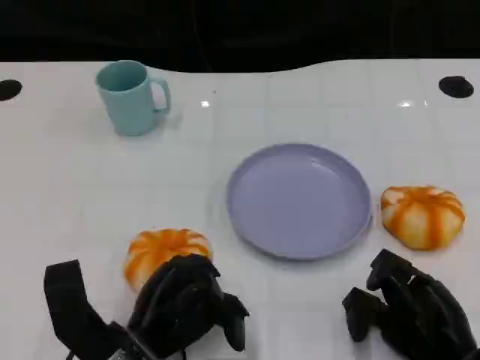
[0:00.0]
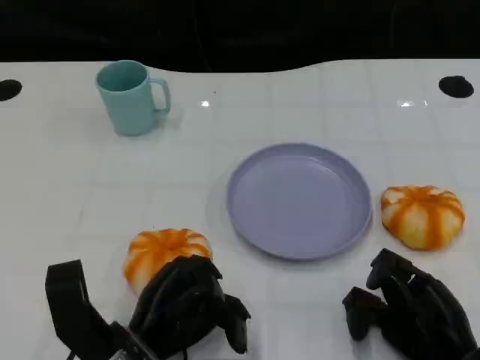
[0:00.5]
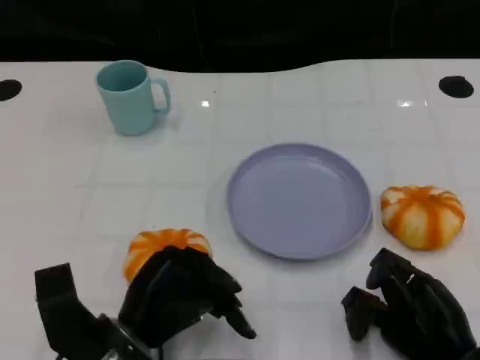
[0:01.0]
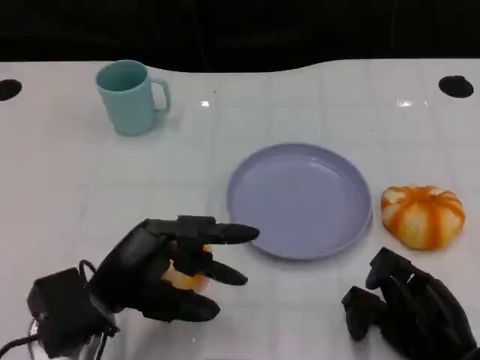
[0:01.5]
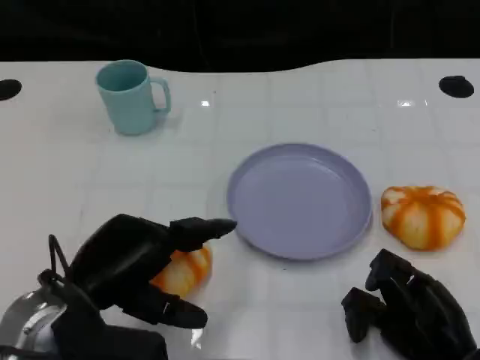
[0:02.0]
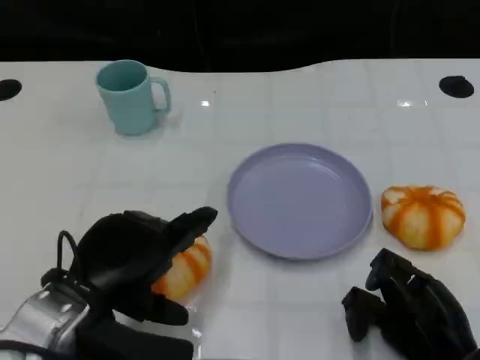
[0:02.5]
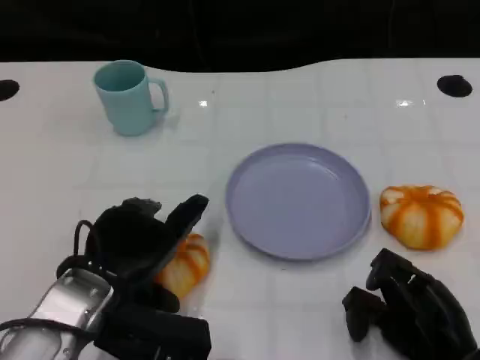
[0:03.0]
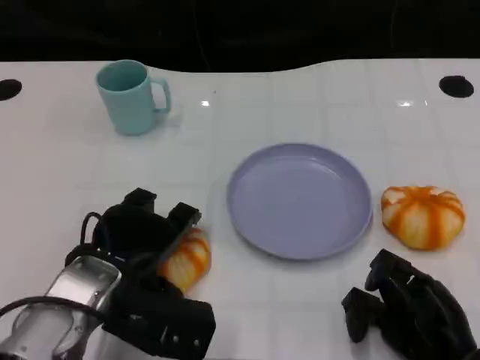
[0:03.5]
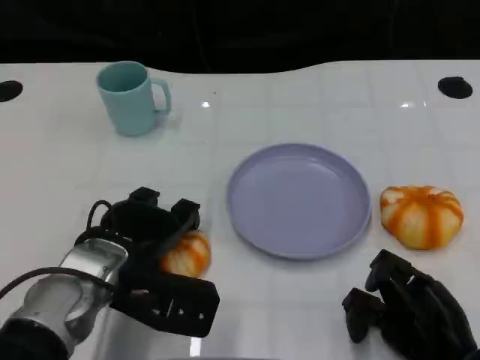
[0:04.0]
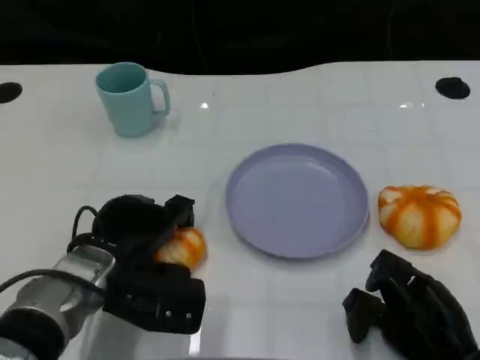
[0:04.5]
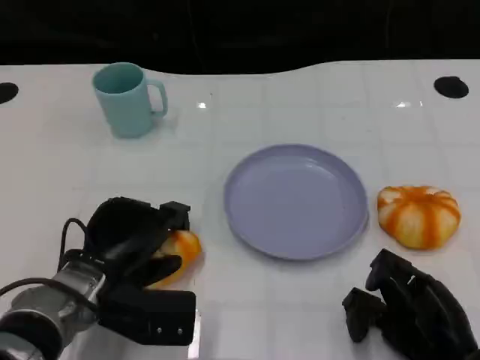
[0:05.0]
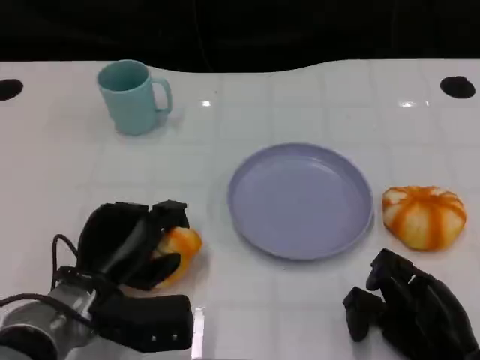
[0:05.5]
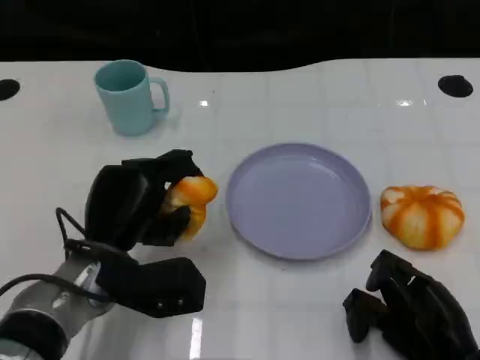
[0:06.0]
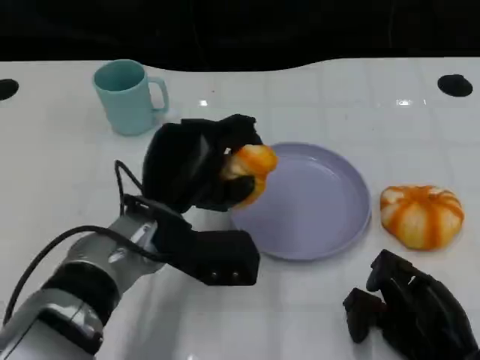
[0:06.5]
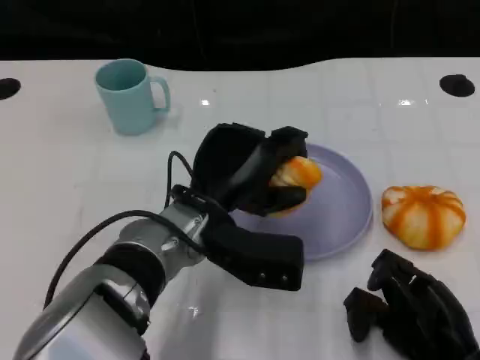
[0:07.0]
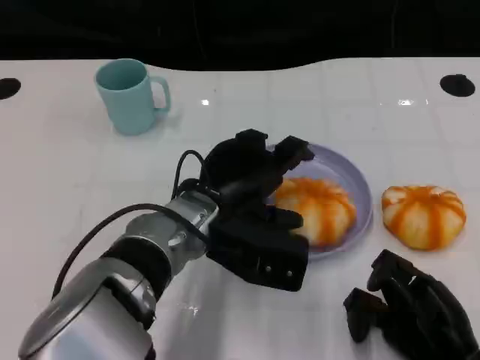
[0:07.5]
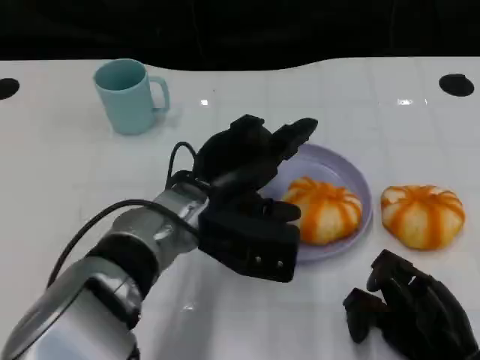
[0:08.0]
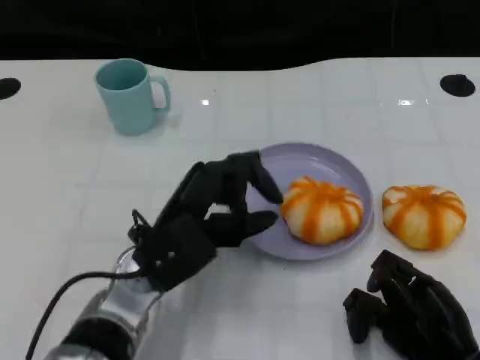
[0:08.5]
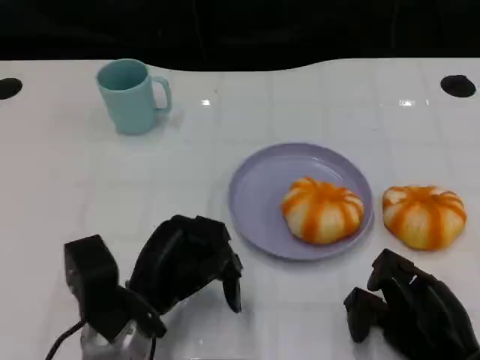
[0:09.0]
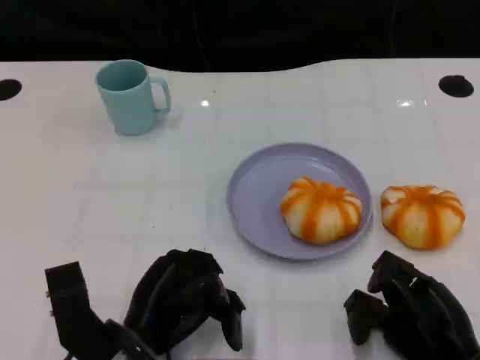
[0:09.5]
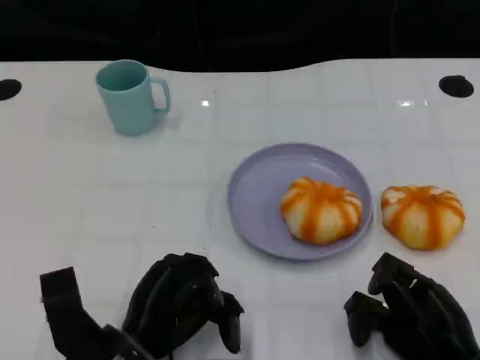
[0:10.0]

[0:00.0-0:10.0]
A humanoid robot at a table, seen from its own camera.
Task of the whole recording: Grasp the bread from the table and place it into the plate.
0:00.0 to 0:02.0: The left hand heads upward, covering roughly 10 cm.
0:02.0 to 0:04.0: The left hand moves forward, some 5 cm.
0:06.0 to 0:08.0: The left hand moves to the right, roughly 10 cm.
0:08.0 to 0:10.0: The left hand moves backward, downward and to the left, some 15 cm.

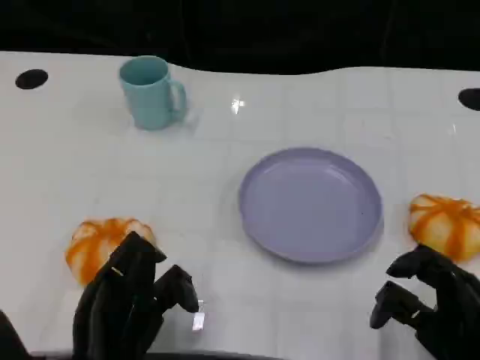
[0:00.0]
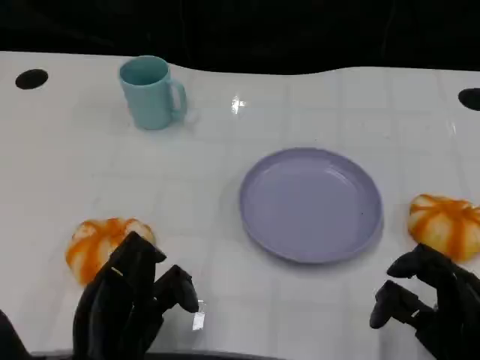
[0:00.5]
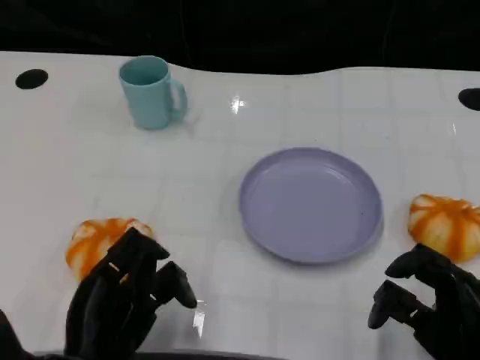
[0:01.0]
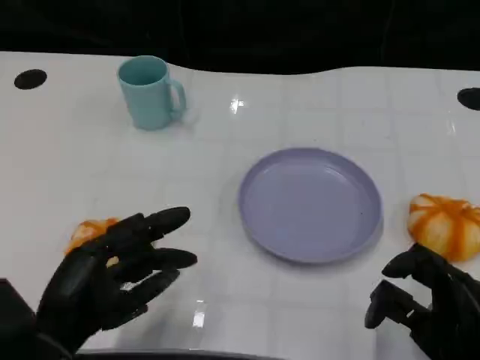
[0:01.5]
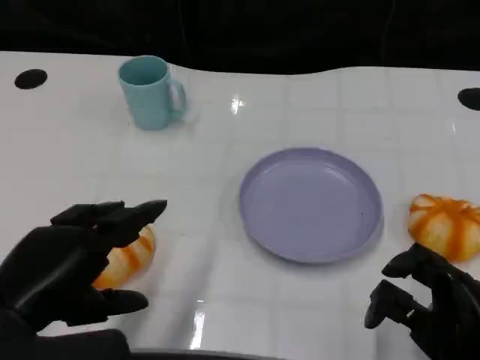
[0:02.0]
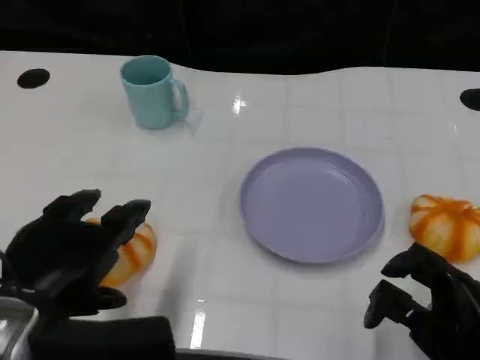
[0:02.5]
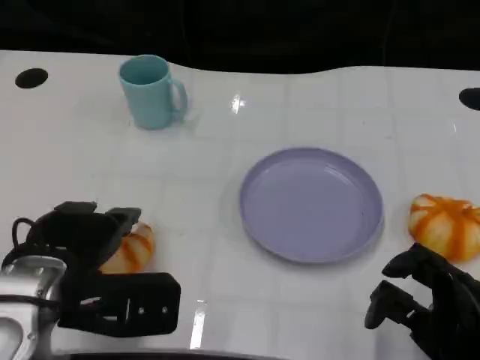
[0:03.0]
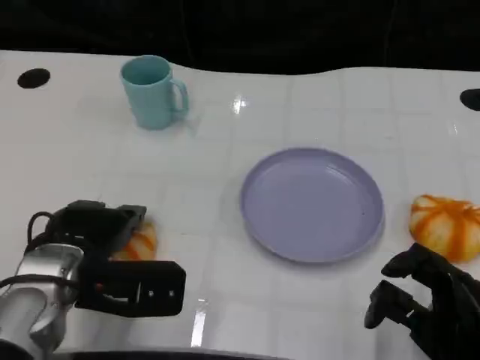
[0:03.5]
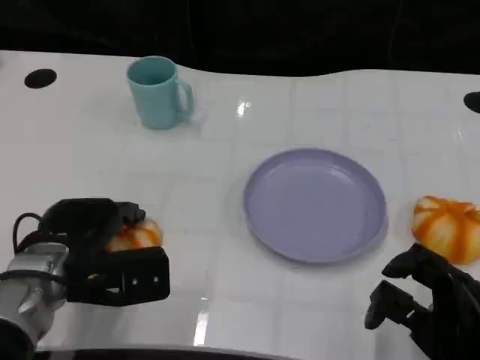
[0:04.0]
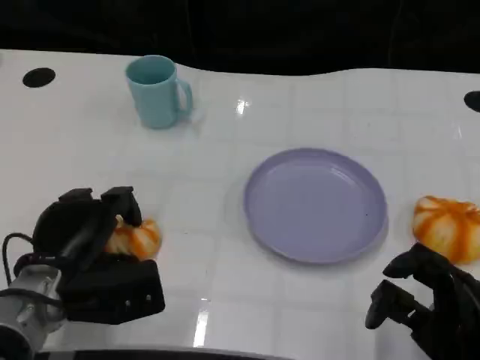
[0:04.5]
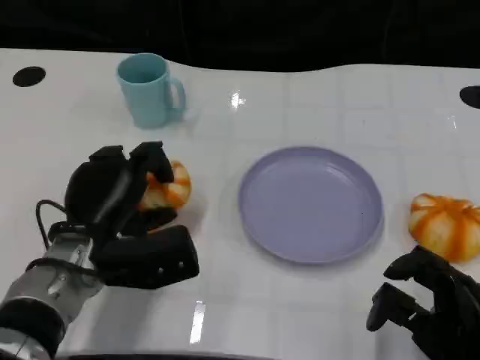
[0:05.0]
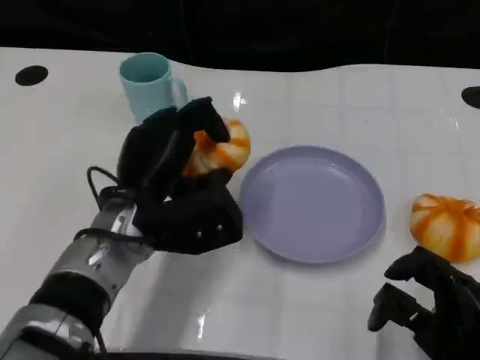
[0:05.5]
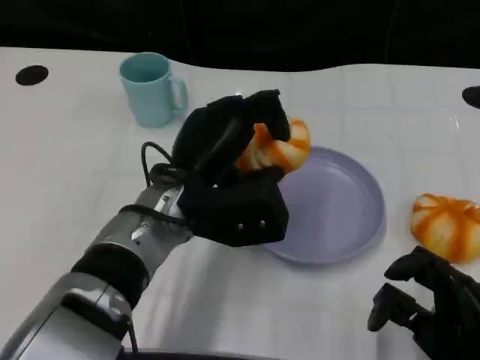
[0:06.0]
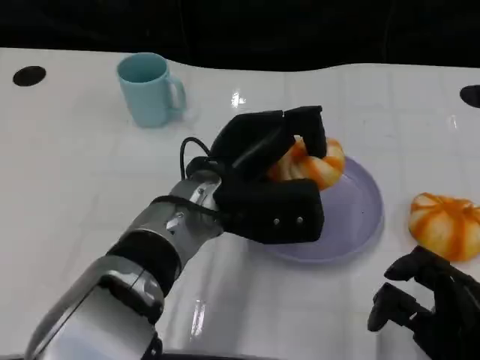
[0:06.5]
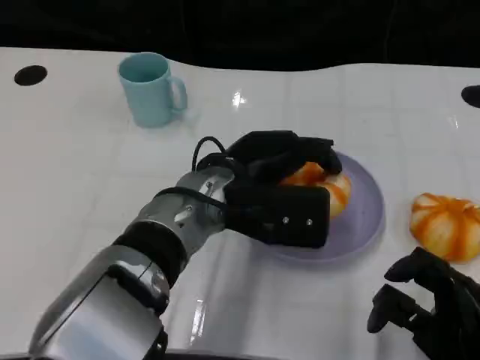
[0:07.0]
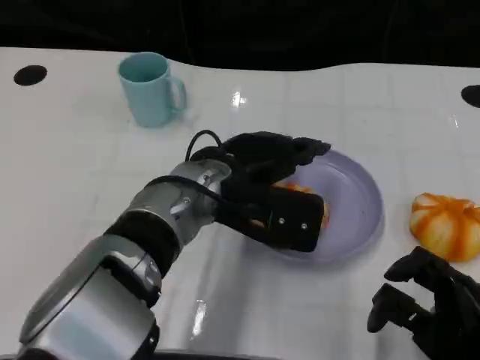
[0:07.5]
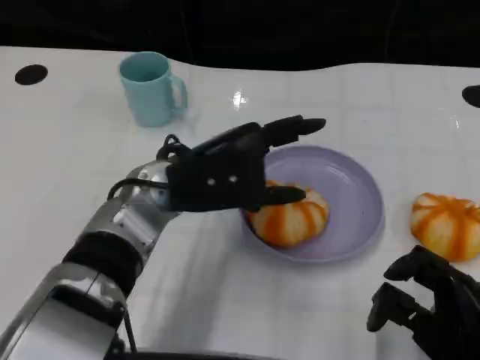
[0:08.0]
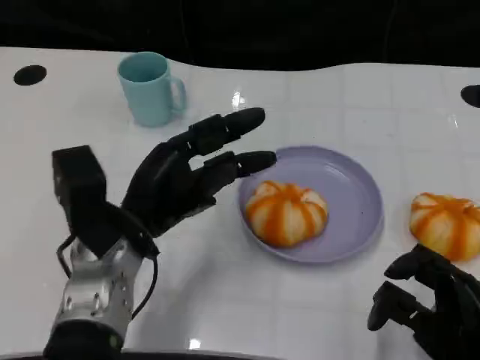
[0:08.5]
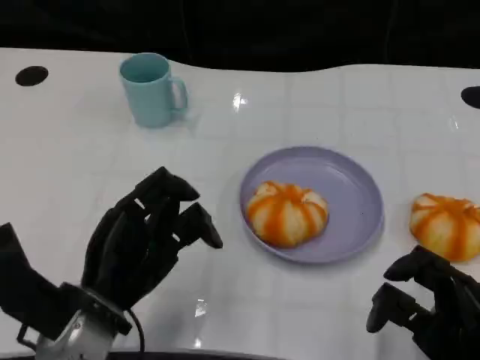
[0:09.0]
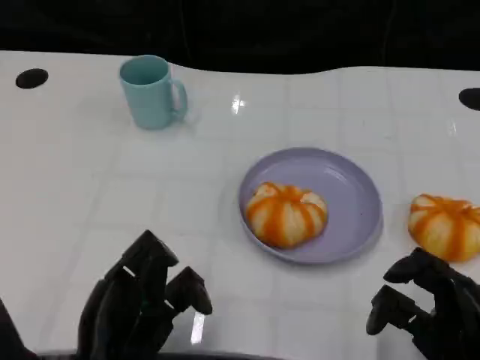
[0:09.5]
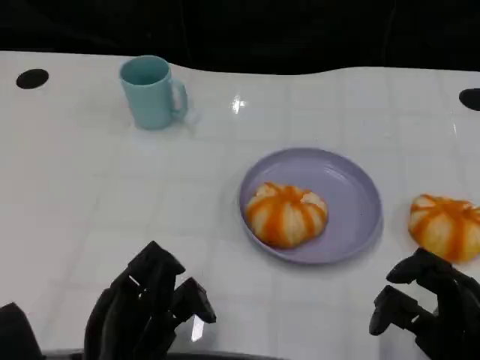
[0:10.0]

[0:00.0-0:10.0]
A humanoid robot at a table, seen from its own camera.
Task of the whole recording: Grasp the bread from the table and place it into the plate.
0:00.0 to 0:02.0: The left hand moves upward and to the left, some 10 cm.
0:02.0 to 0:04.0: The left hand moves forward and downward, about 15 cm.
0:04.0 to 0:06.0: The left hand travels to the right and upward by roughly 15 cm.
0:08.0 to 0:10.0: The left hand heads backward, downward and to the left, covering approximately 20 cm.

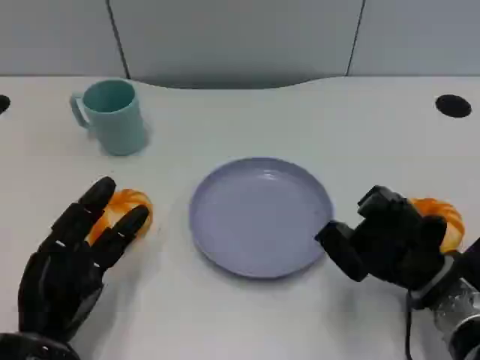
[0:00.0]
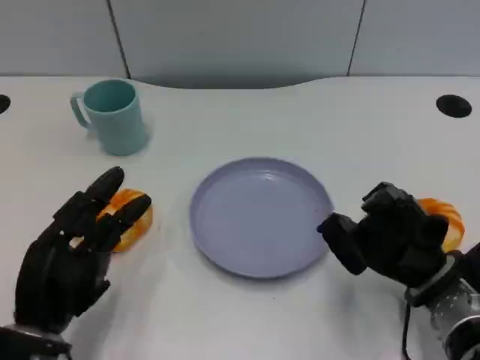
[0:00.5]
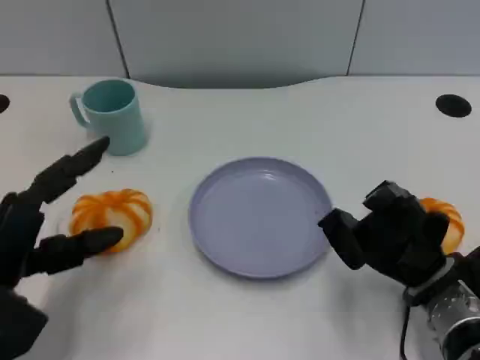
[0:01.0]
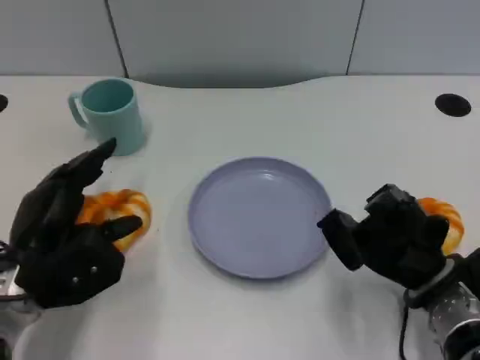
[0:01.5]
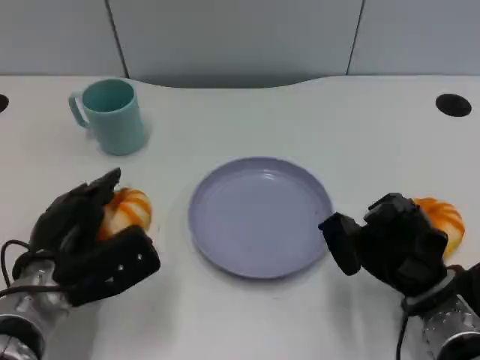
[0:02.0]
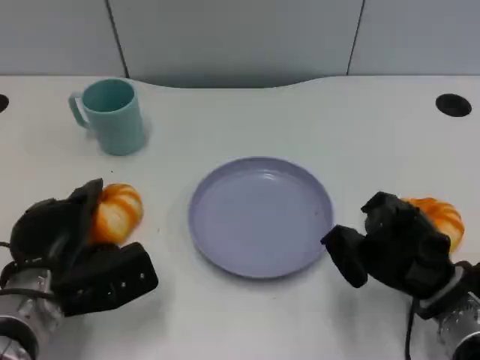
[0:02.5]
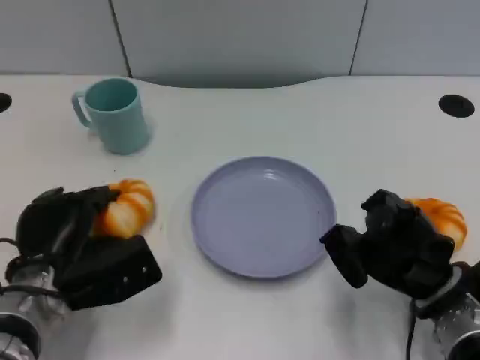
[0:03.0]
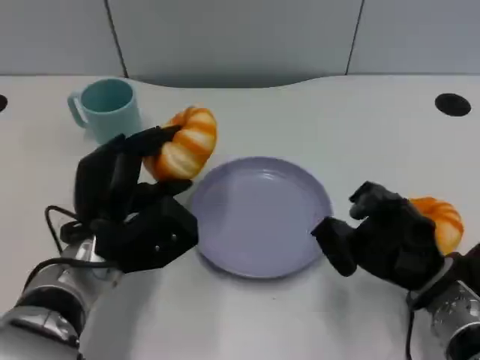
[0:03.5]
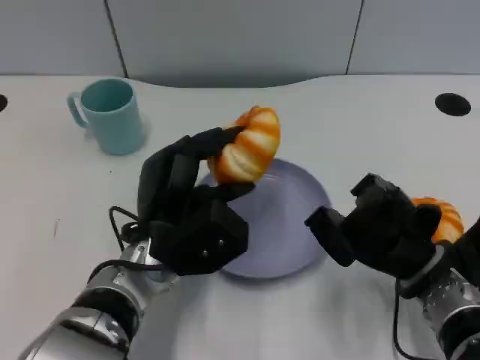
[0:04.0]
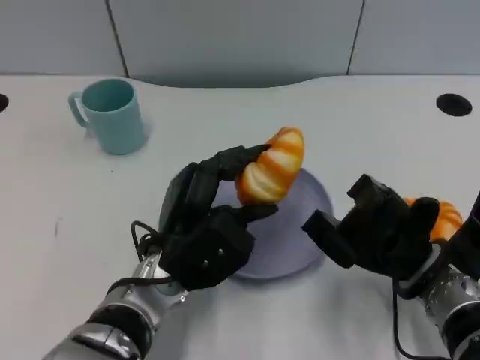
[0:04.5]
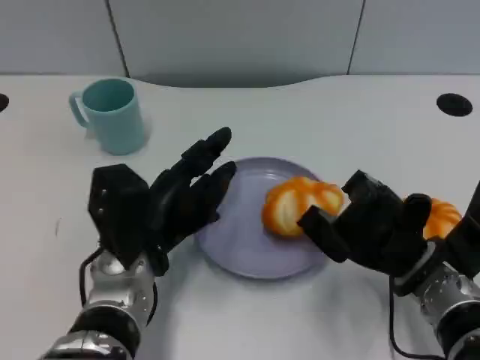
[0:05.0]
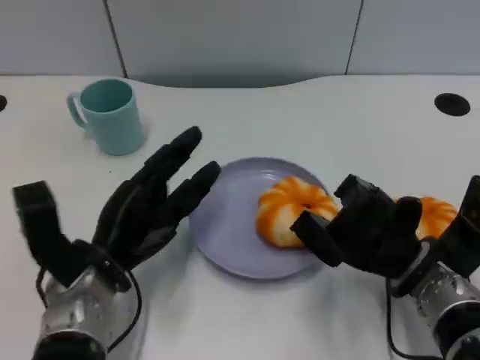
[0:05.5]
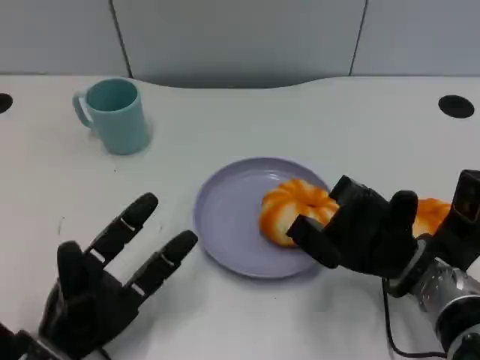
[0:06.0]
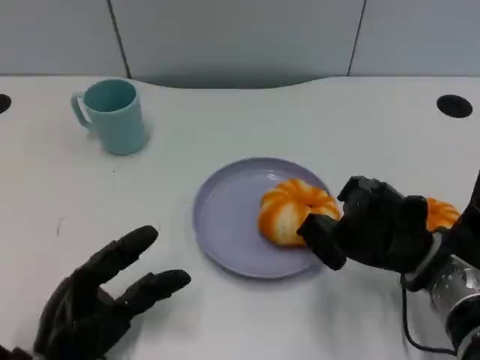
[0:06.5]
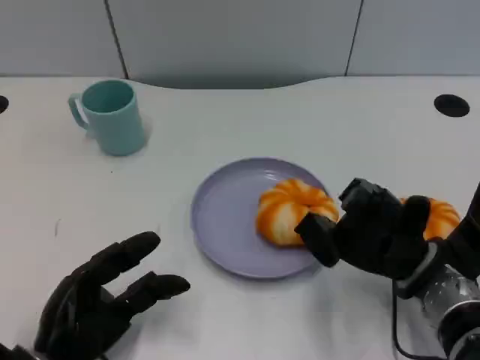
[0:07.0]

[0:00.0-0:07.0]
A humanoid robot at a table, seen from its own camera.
Task of the whole recording: Grasp the bread from the table and place it into the plate.
0:00.0 to 0:02.0: The left hand goes roughly 5 cm forward.
0:02.0 to 0:03.5: The left hand goes about 5 cm to the right.
0:05.0 to 0:07.0: The left hand heads backward, to the left and downward, covering about 15 cm.
